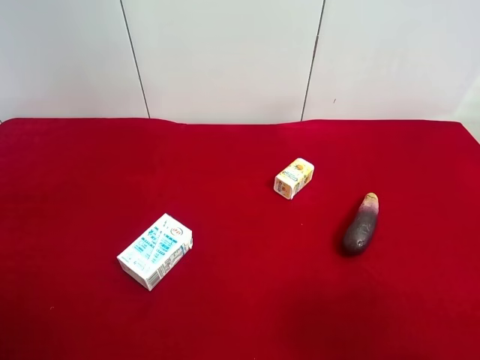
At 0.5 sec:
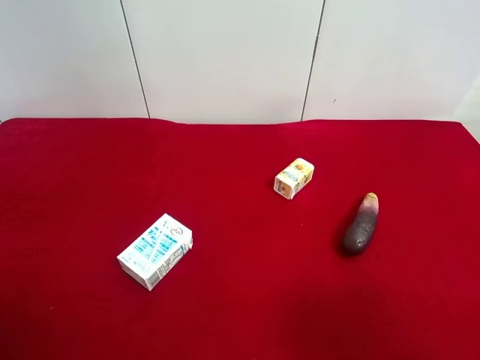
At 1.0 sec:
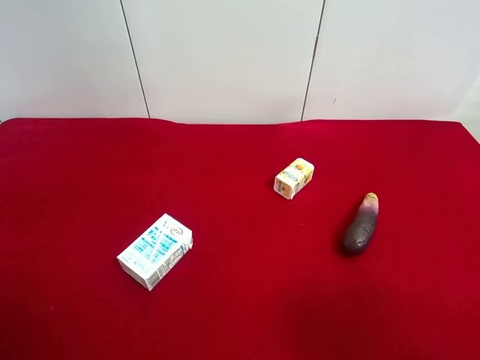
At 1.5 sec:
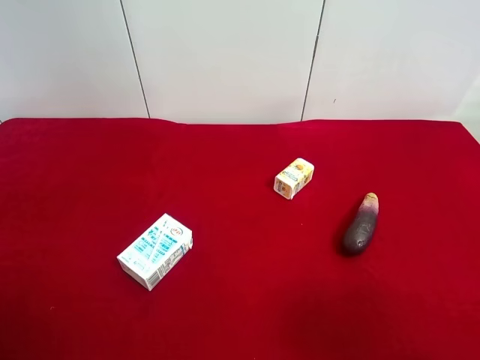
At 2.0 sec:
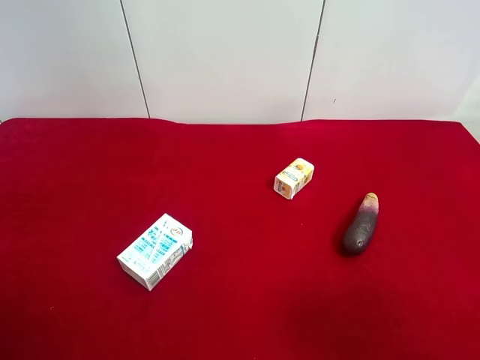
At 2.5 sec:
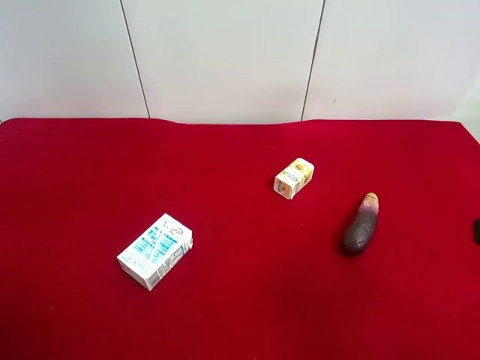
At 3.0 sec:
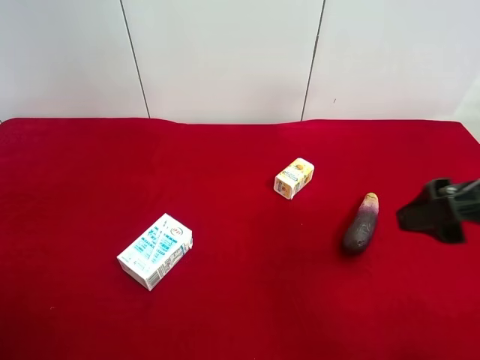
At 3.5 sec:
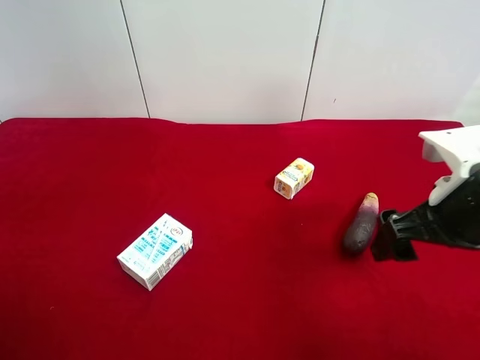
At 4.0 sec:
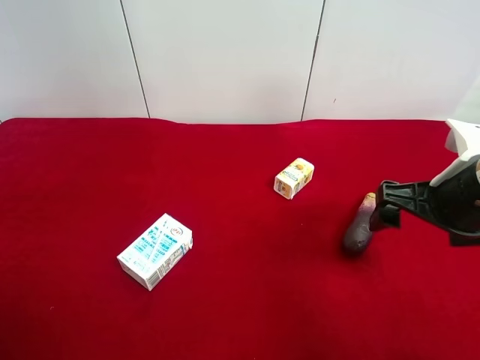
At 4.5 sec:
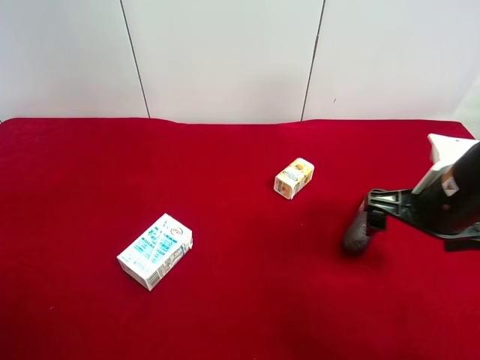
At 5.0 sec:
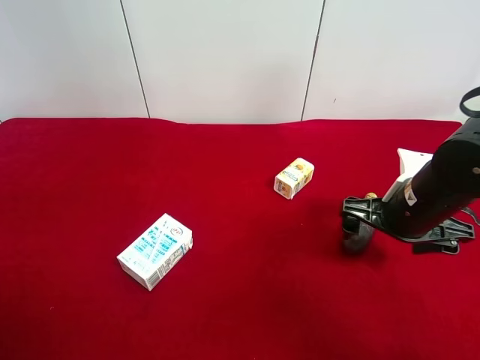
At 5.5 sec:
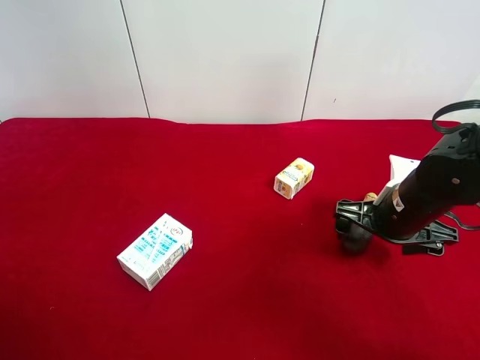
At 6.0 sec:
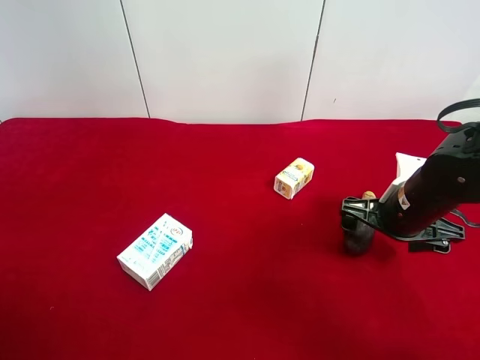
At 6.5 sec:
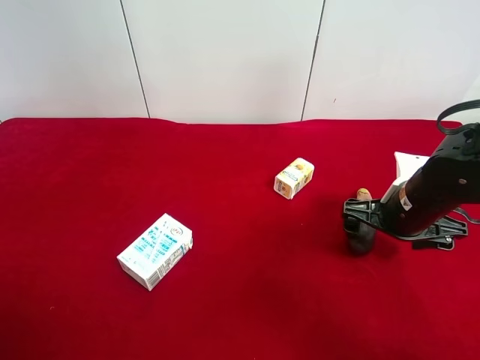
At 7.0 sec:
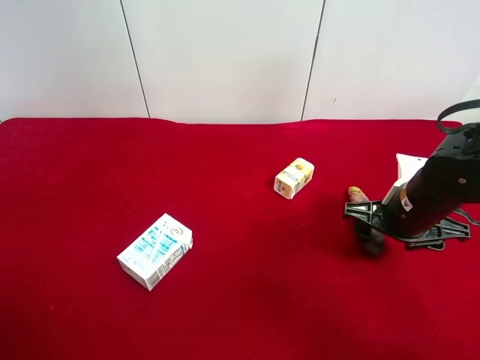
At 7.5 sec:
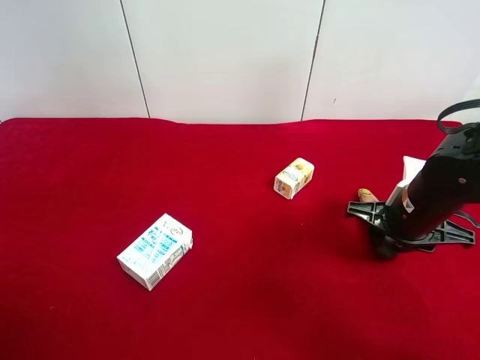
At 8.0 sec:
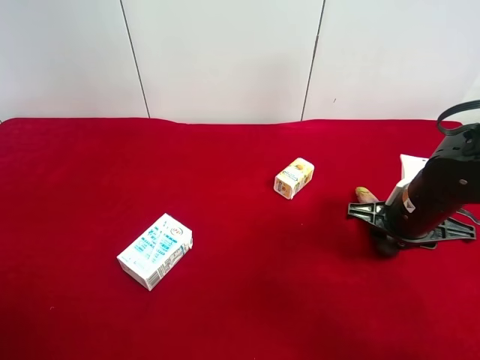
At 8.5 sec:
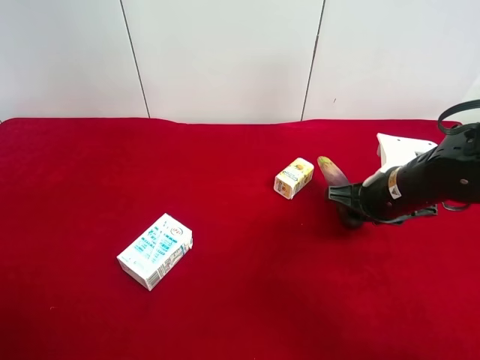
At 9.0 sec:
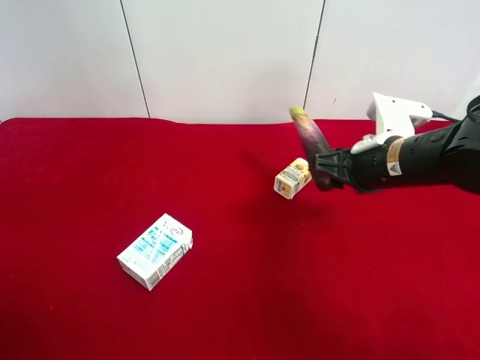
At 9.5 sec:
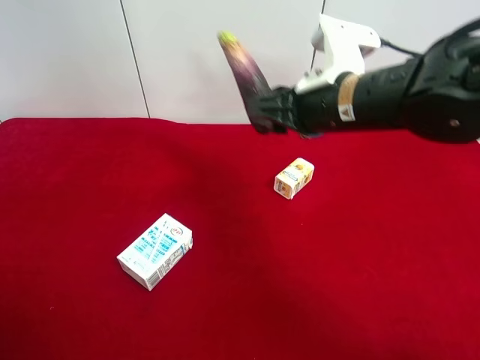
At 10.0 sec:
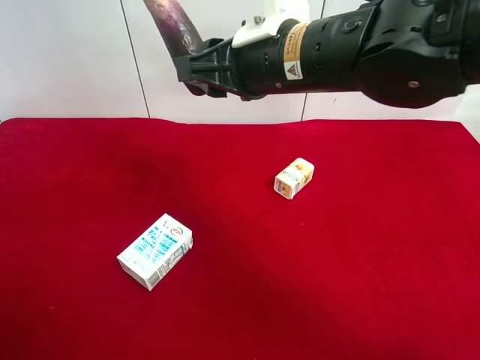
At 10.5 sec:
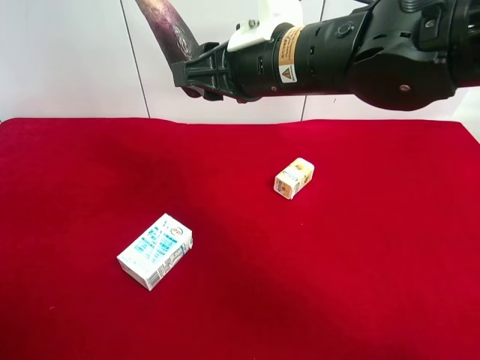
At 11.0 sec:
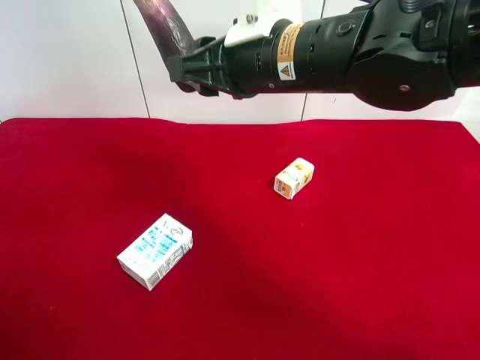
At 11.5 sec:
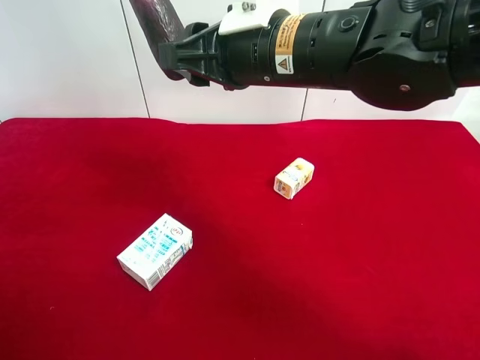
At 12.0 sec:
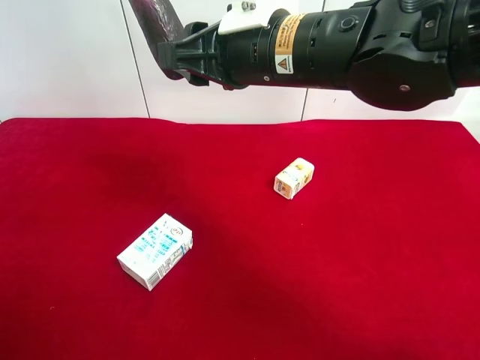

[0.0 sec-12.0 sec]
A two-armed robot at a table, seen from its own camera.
Task of the whole recording: use the right gripper to pick up the item and transfer it from the right gripper to the left gripper.
Step, 0.0 sec to 7.5 sec: Use the right gripper to grab the eggplant on the right side of the table.
2.0 sec to 4.0 sec: The right gripper travels forward by about 15 cm.
4.0 sec to 6.0 sec: The right gripper shifts roughly 10 cm downward and forward.
6.0 sec to 8.0 sec: The right gripper closes up.
8.0 sec to 10.0 sec: The right gripper goes approximately 25 cm to the left and upward.
10.0 sec to 12.0 sec: There are only small adjustments of the grippers.

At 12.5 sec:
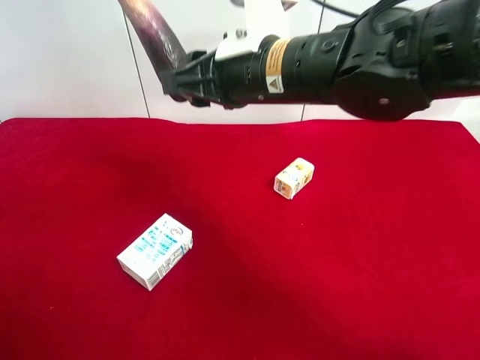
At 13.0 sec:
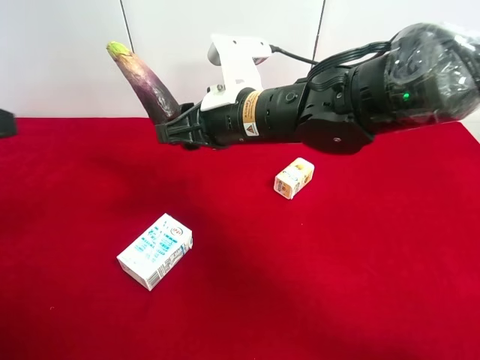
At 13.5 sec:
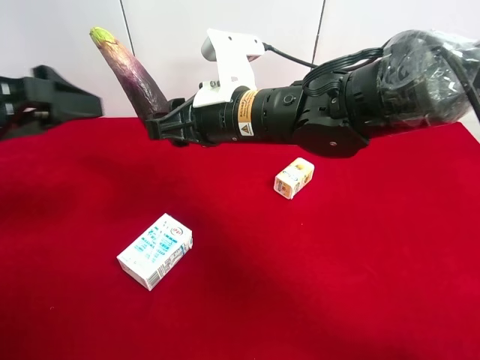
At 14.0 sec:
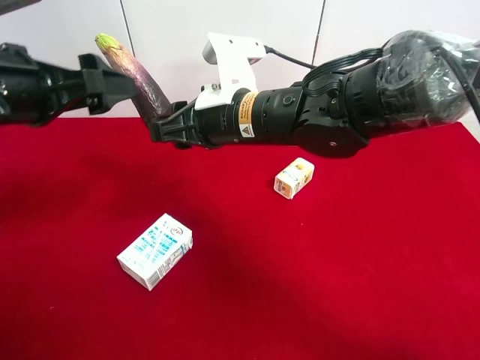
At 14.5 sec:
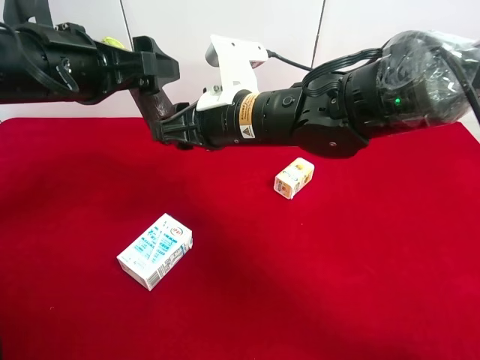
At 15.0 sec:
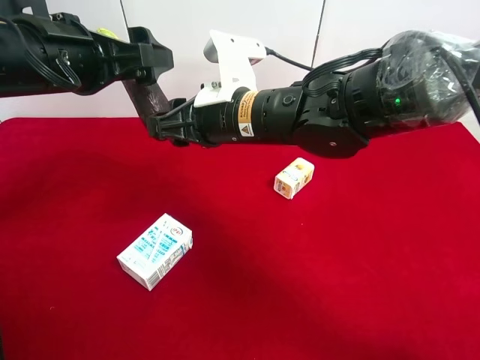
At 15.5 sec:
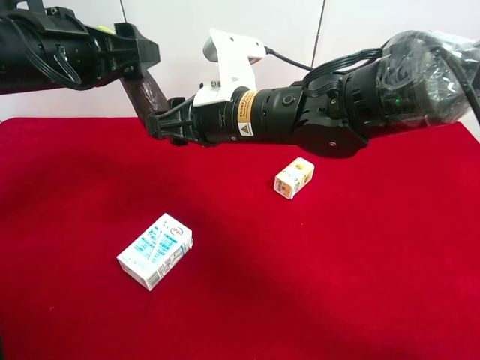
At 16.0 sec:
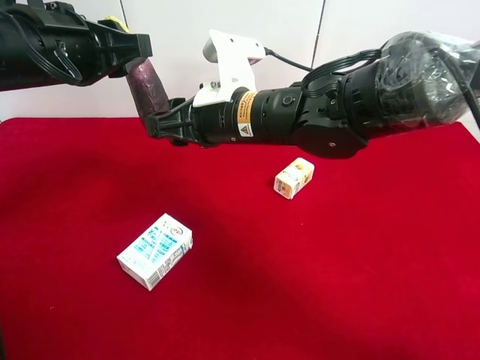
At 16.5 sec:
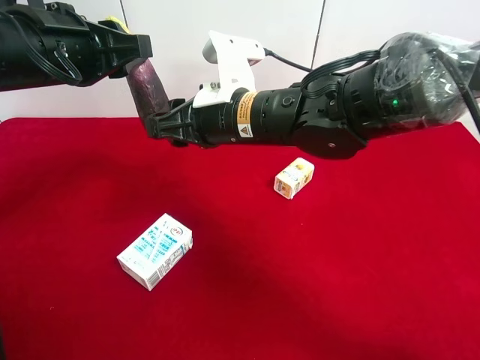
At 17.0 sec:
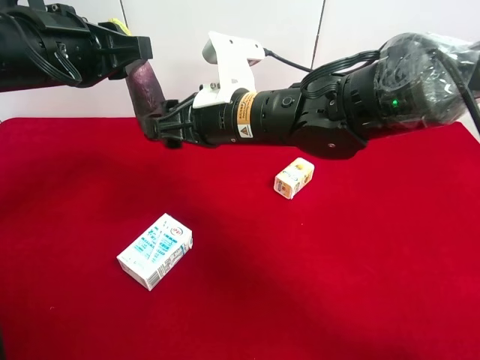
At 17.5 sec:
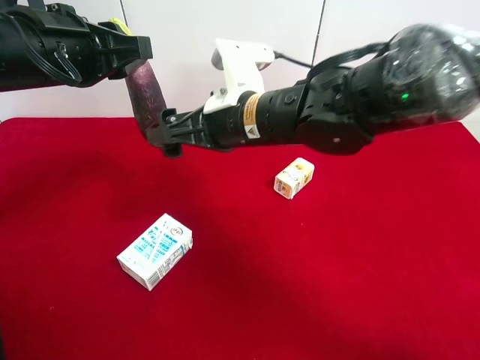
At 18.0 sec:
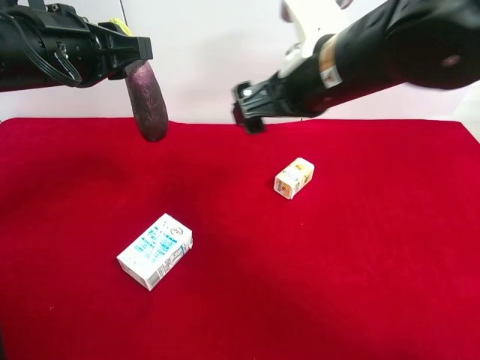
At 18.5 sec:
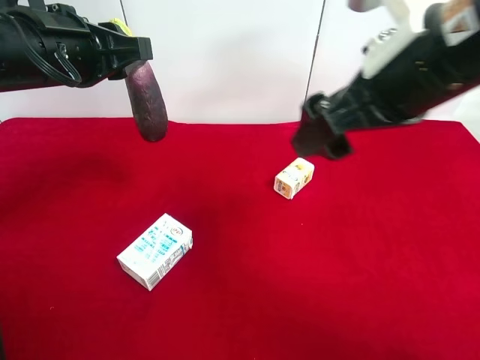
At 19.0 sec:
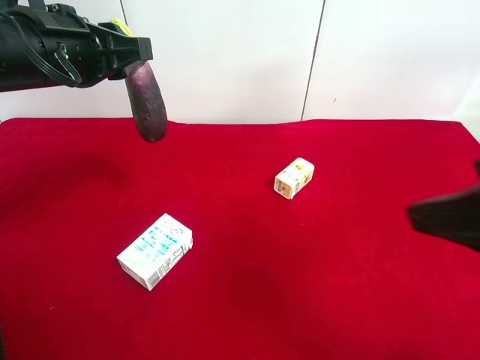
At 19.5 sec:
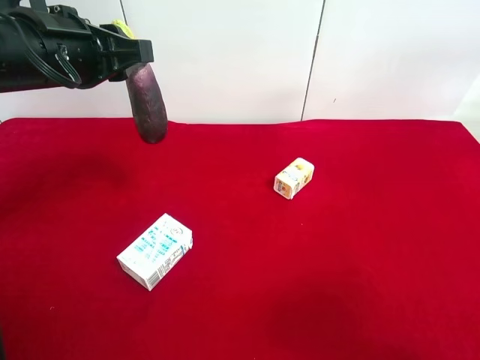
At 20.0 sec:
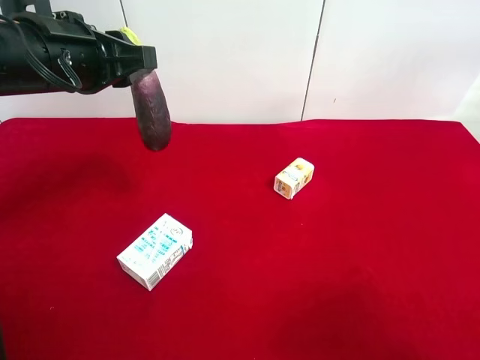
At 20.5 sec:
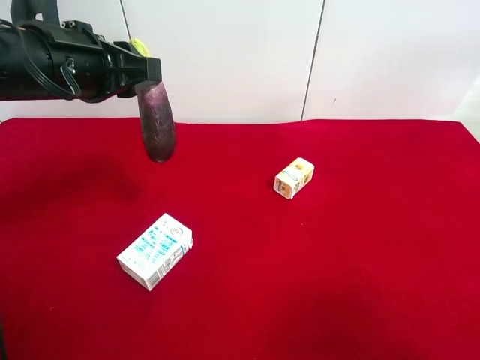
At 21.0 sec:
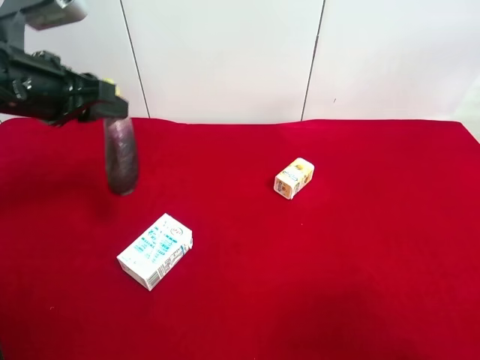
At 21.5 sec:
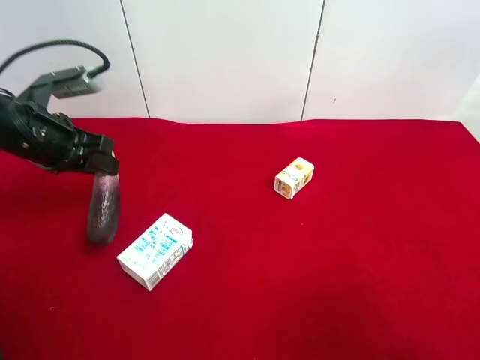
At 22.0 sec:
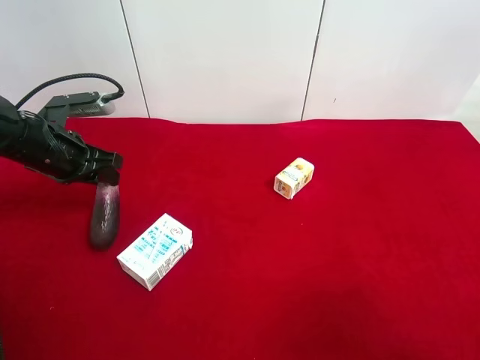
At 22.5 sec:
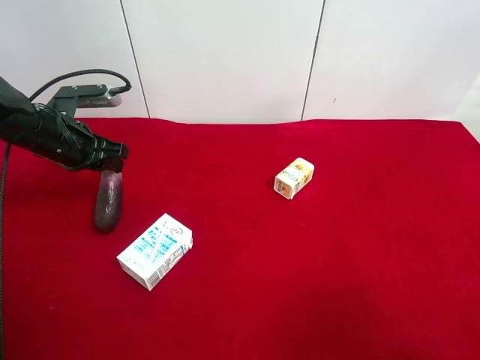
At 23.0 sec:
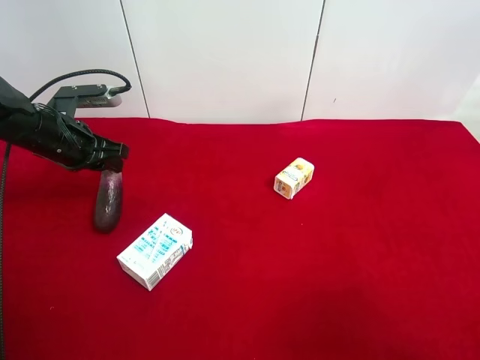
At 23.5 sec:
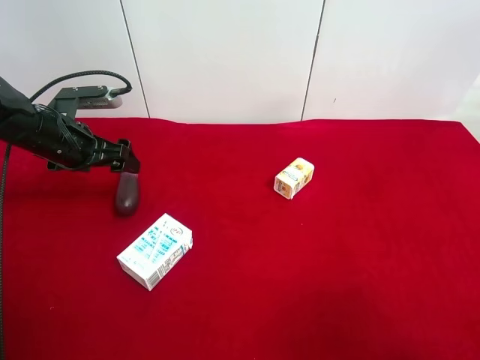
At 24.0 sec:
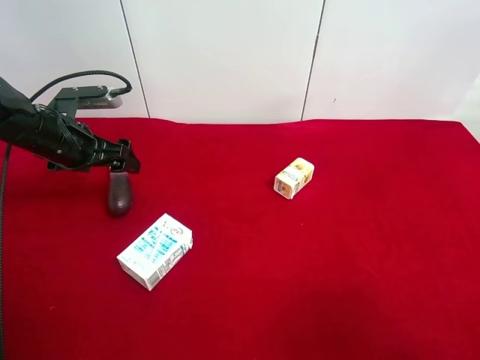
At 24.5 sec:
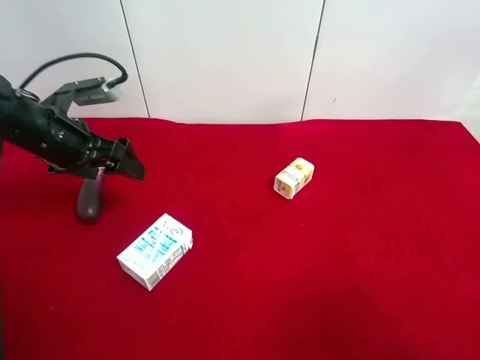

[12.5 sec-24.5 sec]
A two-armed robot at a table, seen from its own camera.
Task of the whole recording: use the right gripper to pick up the item and transfer it from the right gripper to the left gripper.
Step, 12.5 sec to 17.0 sec: Pass the eggplant to the left gripper.
Step, 17.5 sec to 23.0 sec: The left gripper places eggplant on the left side of the table.
12.5 sec to 14.5 sec: The right gripper is displaced downward by roughly 5 cm. Meanwhile the left gripper travels forward and to the right by roughly 25 cm.
14.5 sec to 16.5 sec: The left gripper closes.
16.5 sec to 18.5 sec: The right gripper travels to the right, upward and backward by approximately 20 cm, and opens up.
18.5 sec to 20.5 sec: The right gripper is displaced backward and to the right by approximately 25 cm.
20.5 sec to 22.5 sec: The left gripper is displaced downward, to the left and forward by some 20 cm.
22.5 sec to 24.5 sec: The left gripper changes place by approximately 5 cm, and opens up.

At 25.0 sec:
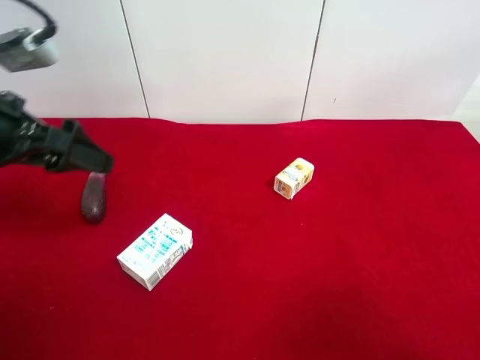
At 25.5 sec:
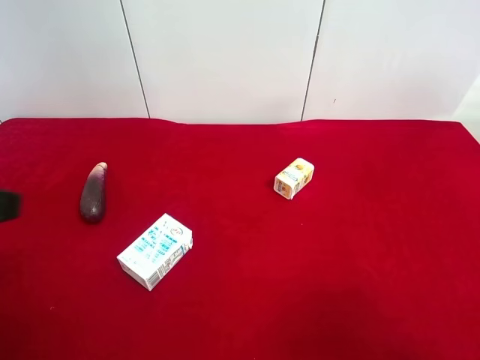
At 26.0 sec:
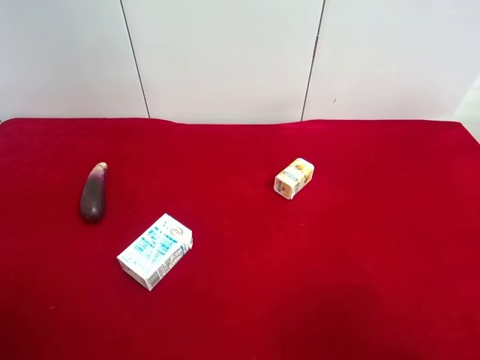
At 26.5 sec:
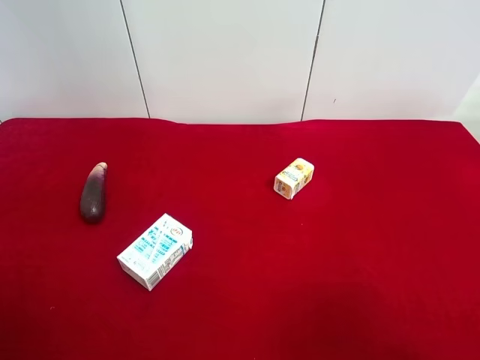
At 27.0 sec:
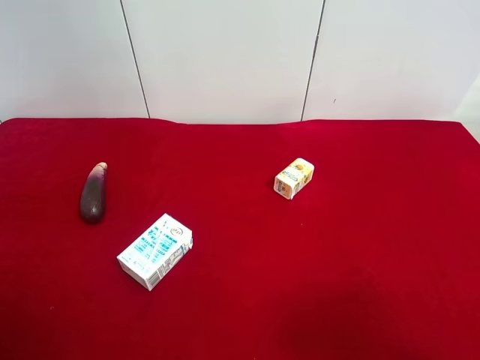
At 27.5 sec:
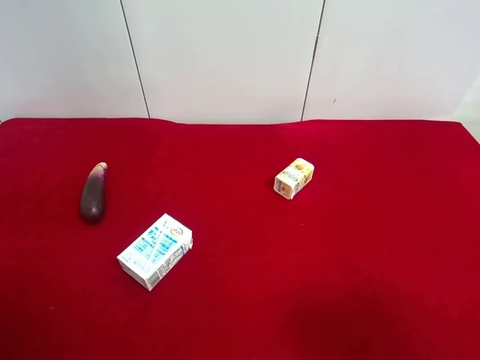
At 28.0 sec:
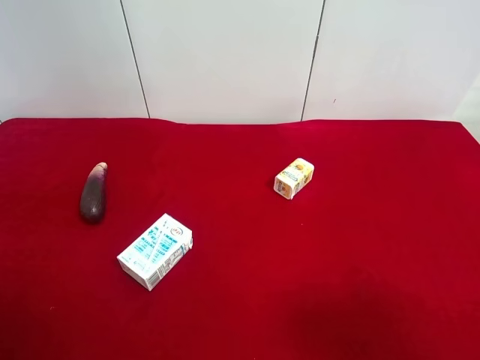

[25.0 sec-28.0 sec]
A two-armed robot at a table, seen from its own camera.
Task of the whole recording: use the right gripper to pick up the item and transfer it from the right gripper to the left gripper.
25.0 sec to 26.5 sec: The left gripper goes about 20 cm backward.
